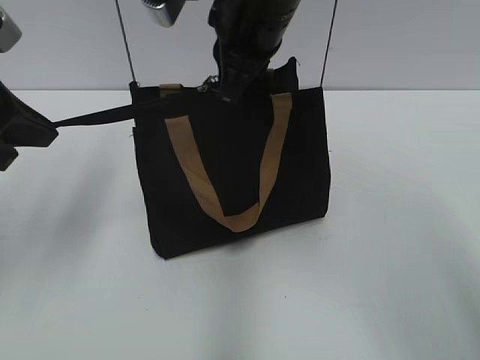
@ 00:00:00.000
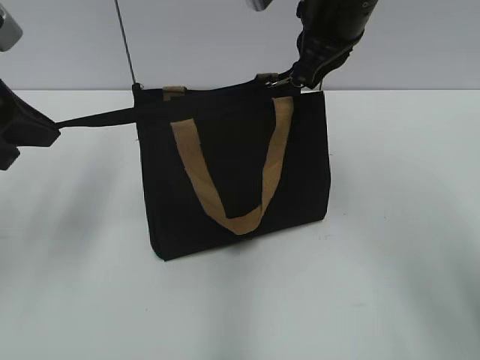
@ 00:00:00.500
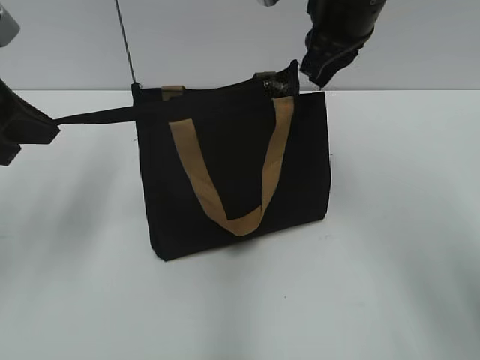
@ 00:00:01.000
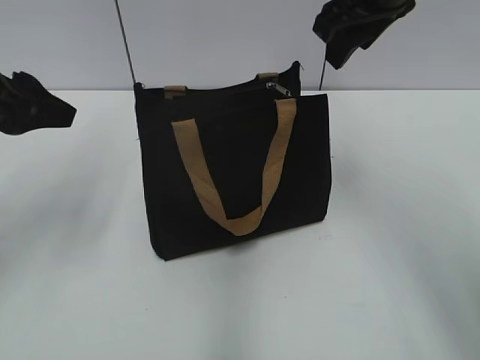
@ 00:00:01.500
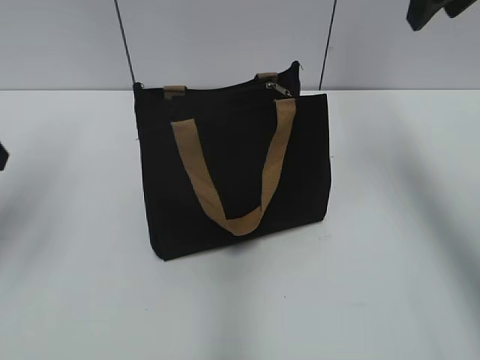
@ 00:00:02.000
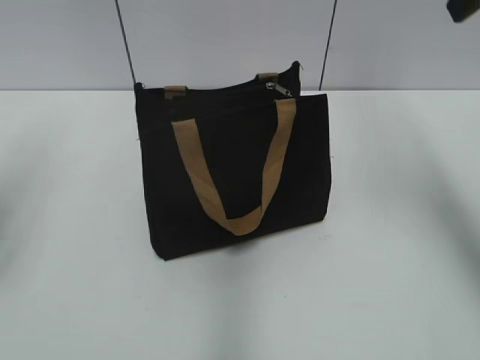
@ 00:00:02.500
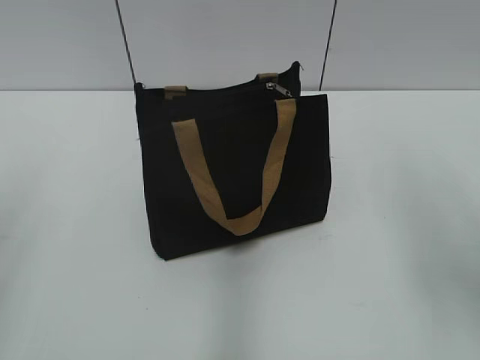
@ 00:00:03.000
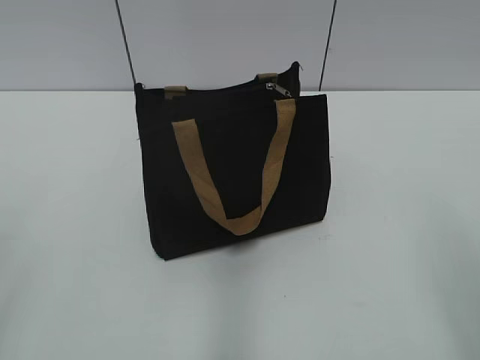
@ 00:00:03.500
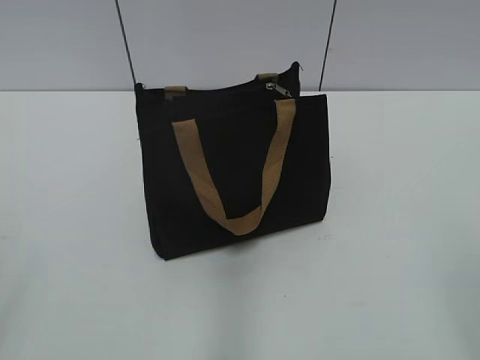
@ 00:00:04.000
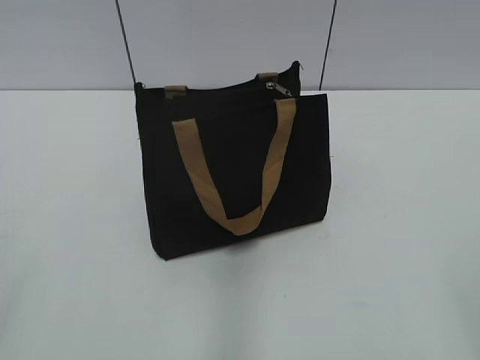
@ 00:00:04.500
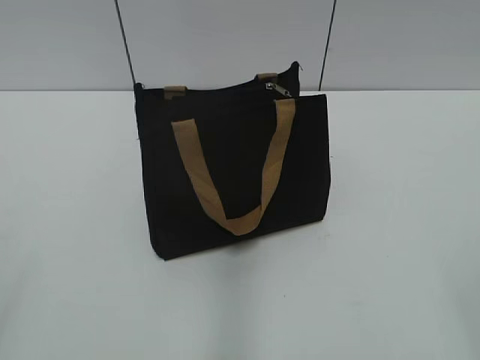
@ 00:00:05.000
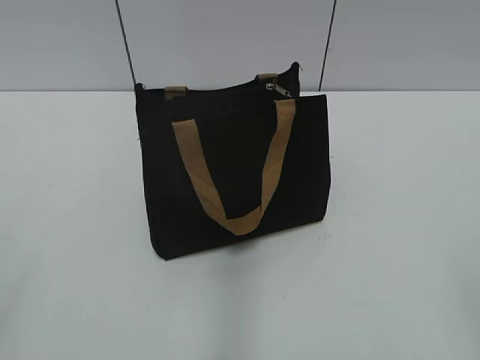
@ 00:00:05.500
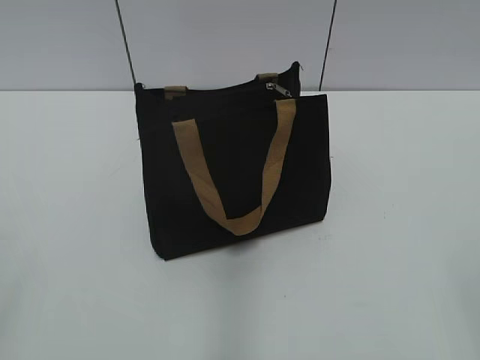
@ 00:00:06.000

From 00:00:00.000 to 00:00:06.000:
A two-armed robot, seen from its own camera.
From 00:00:00.000 to 00:00:02.000: The left gripper opens; the right gripper goes roughly 20 cm to the right, and opens its fingers.
From 00:00:02.000 to 00:00:04.000: The grippers both shift backward by about 30 cm.
